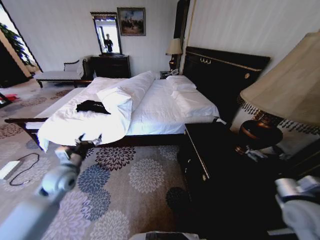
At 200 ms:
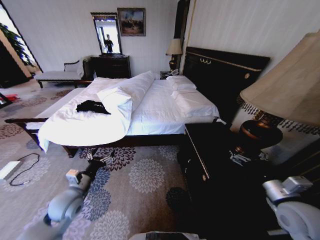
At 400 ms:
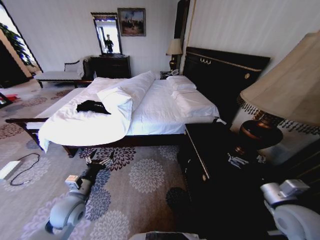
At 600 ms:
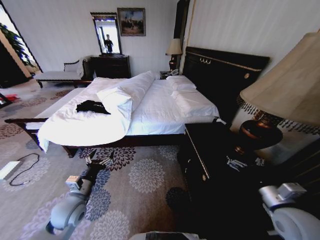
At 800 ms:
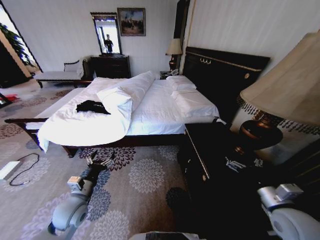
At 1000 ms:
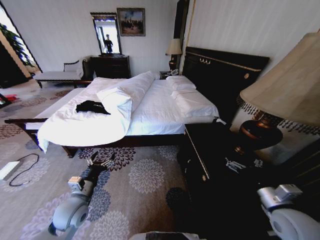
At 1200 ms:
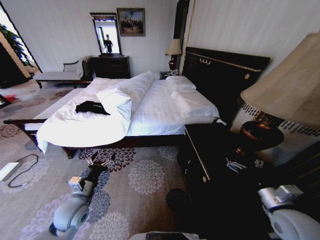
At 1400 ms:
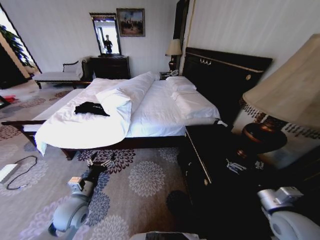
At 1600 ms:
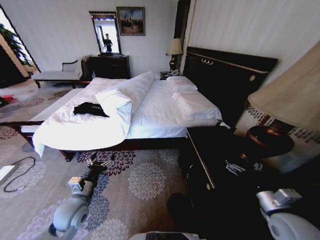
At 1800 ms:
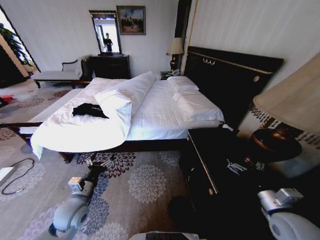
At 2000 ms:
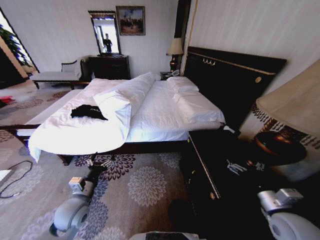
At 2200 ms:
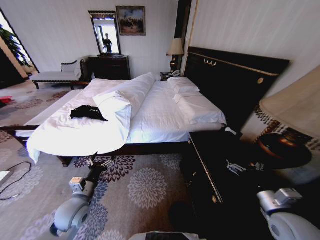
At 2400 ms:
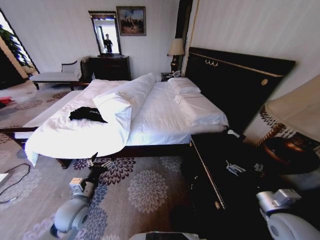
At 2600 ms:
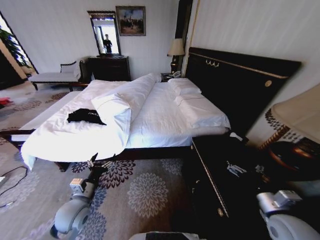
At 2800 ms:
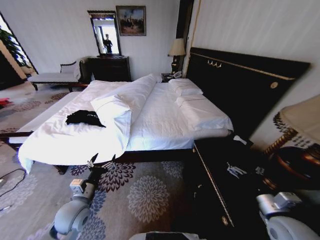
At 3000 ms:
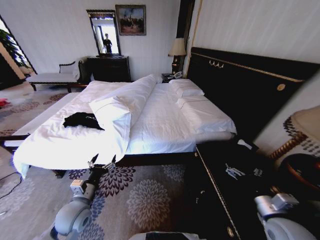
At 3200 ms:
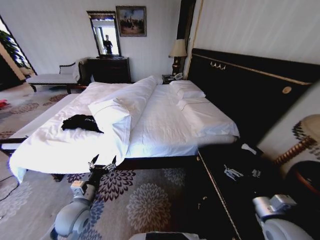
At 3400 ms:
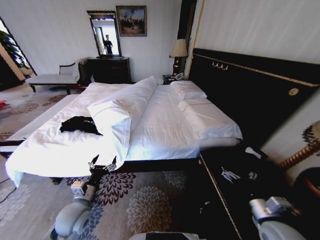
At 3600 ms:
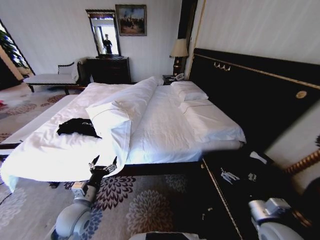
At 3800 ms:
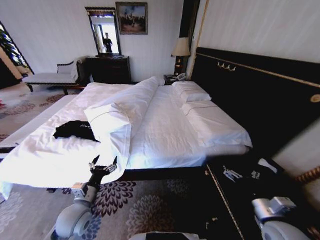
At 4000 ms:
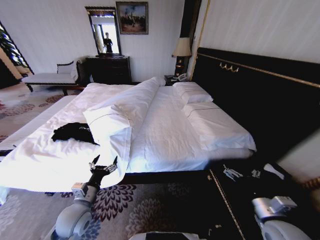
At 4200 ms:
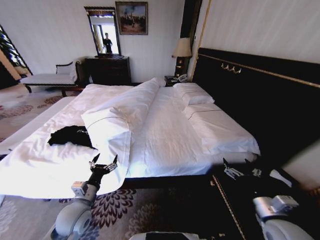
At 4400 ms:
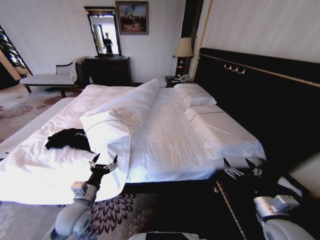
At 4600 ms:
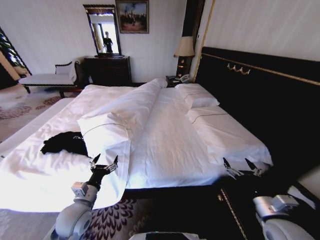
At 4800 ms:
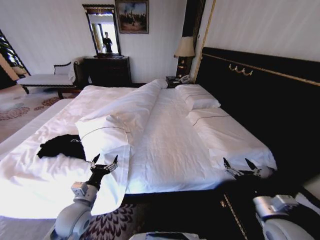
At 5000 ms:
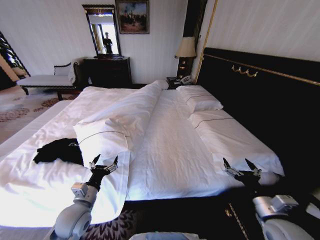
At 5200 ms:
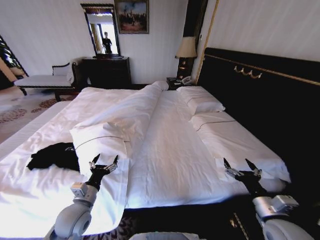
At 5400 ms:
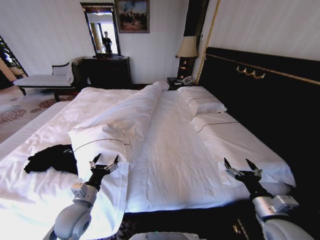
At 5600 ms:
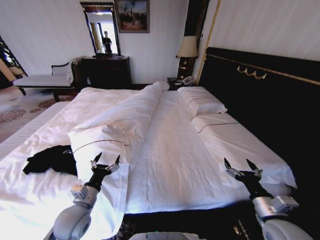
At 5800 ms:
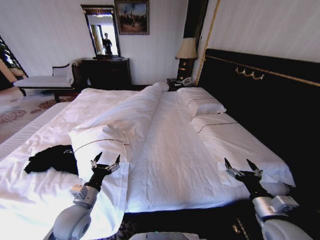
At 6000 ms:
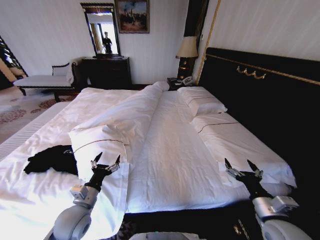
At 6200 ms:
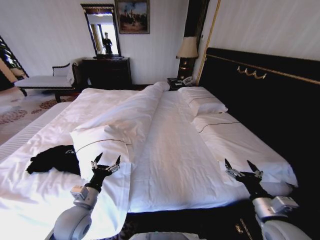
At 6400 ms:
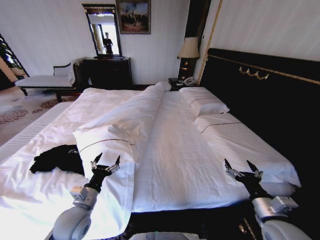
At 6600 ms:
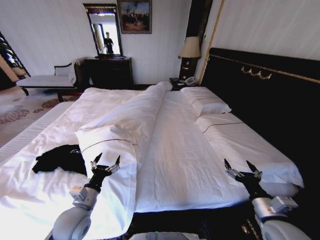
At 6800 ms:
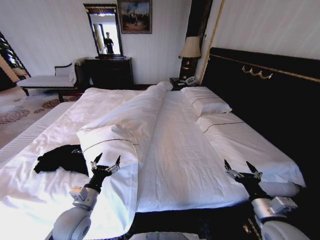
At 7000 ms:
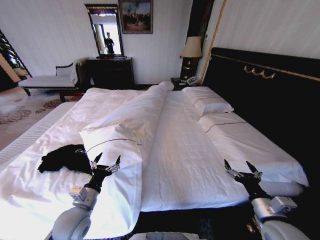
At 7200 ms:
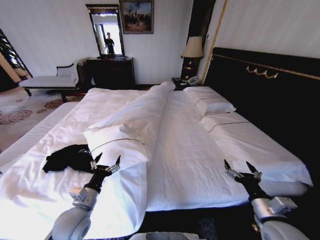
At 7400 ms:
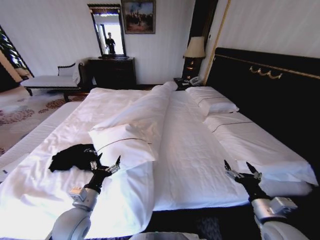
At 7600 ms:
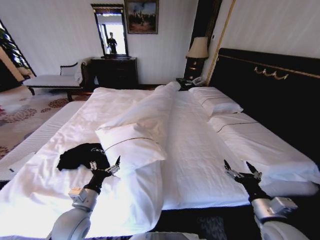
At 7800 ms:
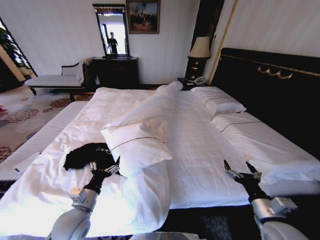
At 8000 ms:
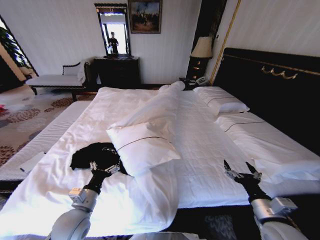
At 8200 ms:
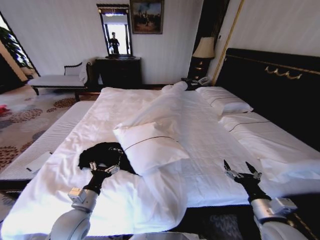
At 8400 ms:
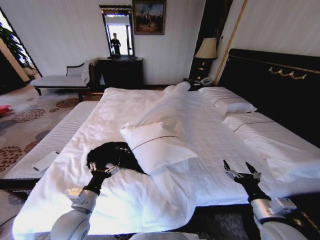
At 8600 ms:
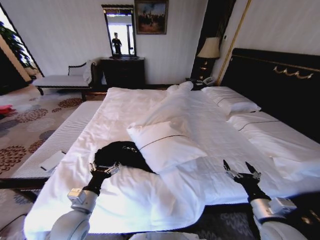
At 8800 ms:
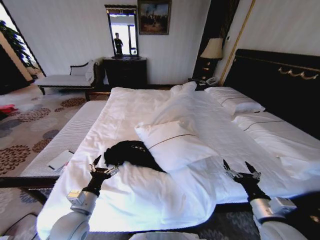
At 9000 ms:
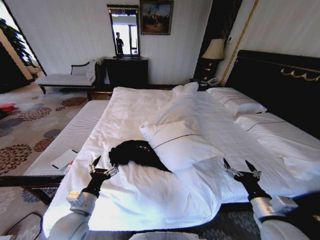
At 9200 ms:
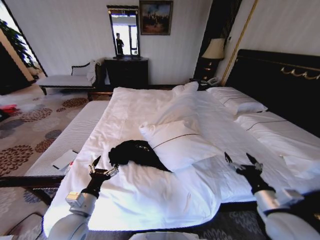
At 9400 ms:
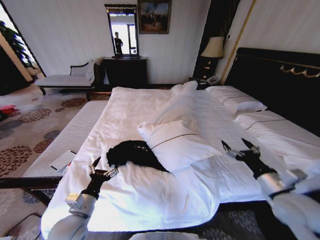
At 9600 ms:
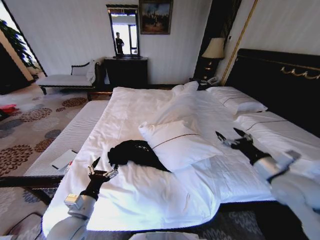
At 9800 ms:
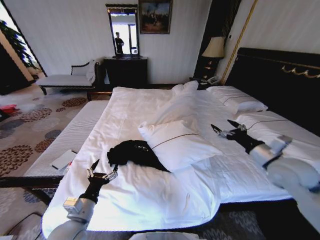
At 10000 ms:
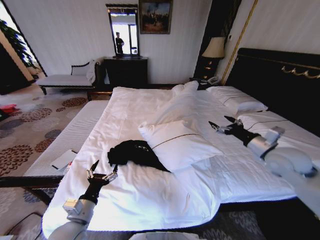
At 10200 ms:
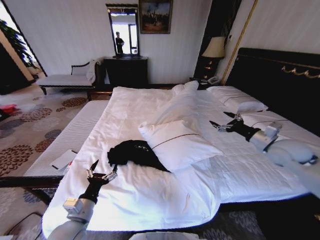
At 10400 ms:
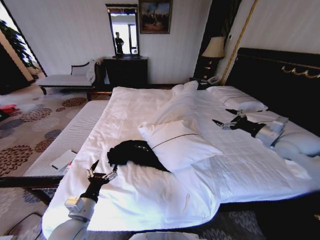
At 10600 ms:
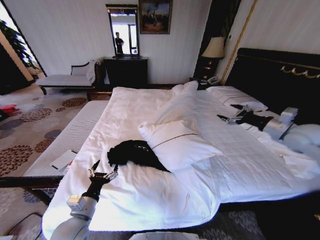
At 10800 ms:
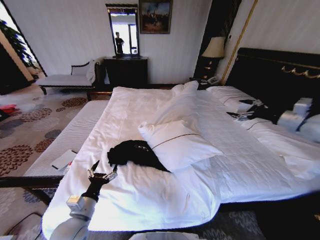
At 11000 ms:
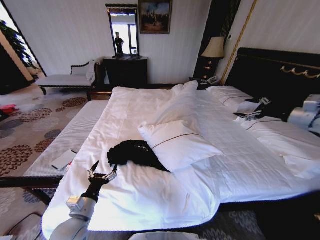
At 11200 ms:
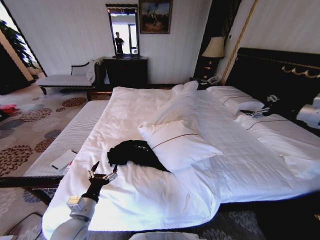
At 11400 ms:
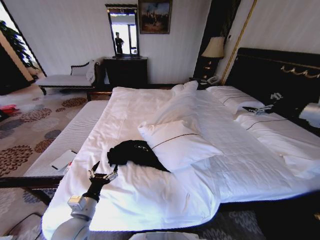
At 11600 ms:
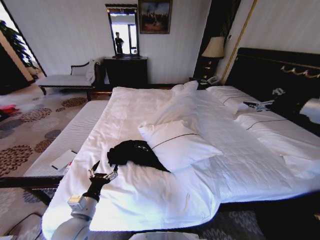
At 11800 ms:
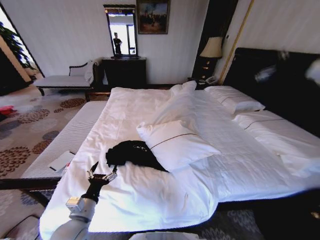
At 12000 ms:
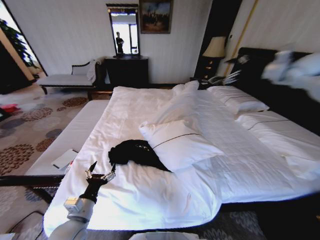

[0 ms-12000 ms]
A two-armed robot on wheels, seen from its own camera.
Task of the whole recording: Fold the clothes on the bed.
9000 ms to 10400 ms: The right gripper shifts about 30 cm forward, upward and to the right.
10400 ms to 12000 ms: The right gripper travels upward and forward by approximately 25 cm.

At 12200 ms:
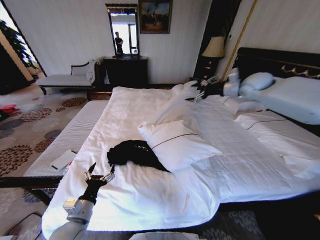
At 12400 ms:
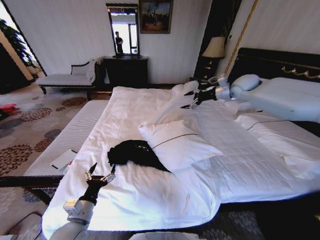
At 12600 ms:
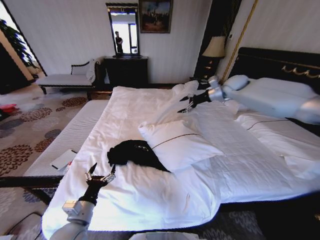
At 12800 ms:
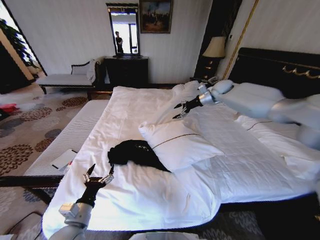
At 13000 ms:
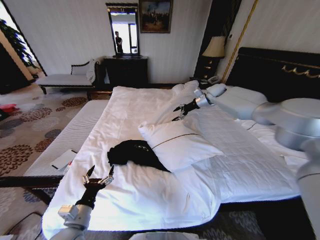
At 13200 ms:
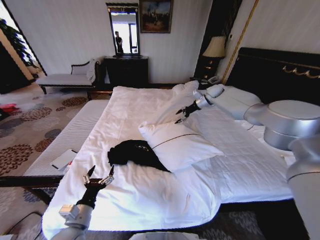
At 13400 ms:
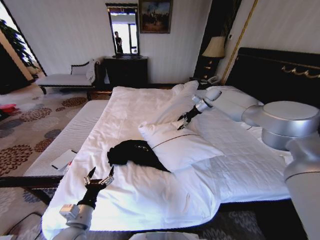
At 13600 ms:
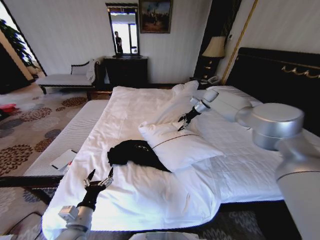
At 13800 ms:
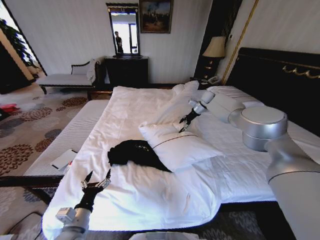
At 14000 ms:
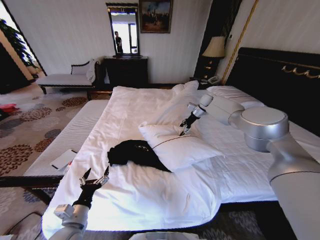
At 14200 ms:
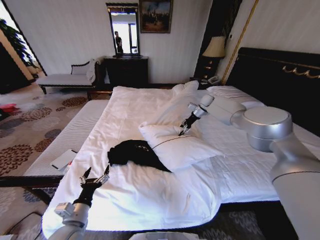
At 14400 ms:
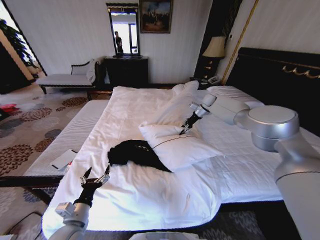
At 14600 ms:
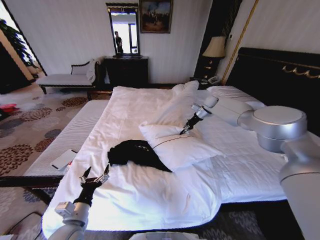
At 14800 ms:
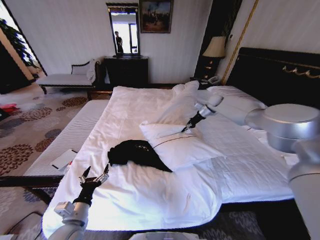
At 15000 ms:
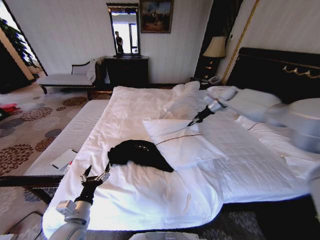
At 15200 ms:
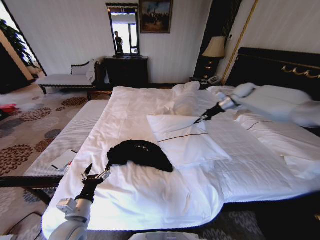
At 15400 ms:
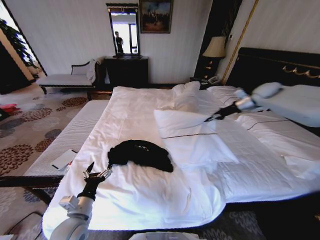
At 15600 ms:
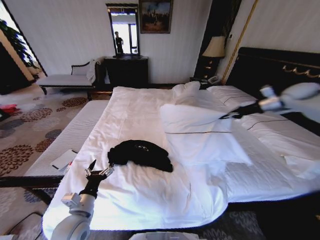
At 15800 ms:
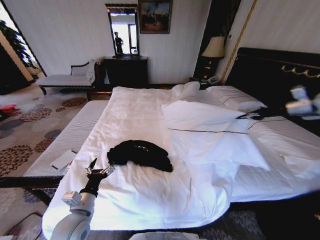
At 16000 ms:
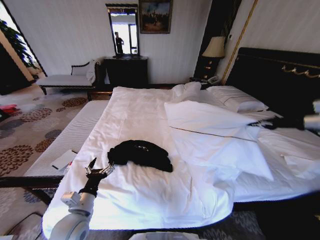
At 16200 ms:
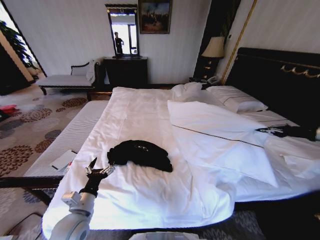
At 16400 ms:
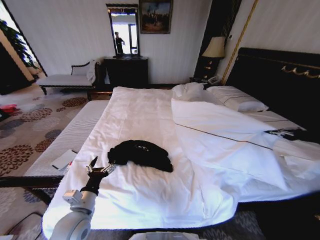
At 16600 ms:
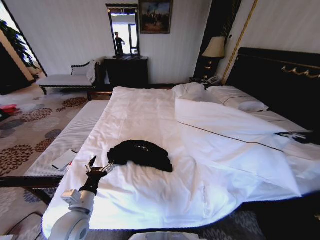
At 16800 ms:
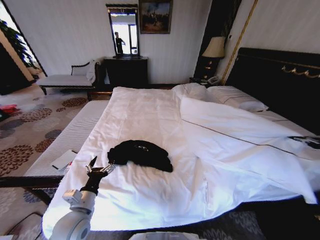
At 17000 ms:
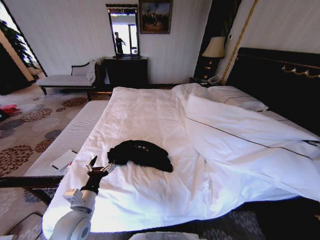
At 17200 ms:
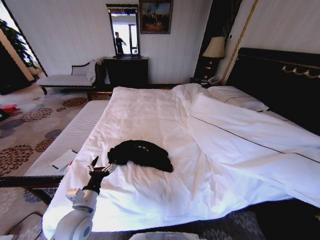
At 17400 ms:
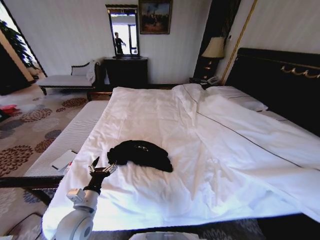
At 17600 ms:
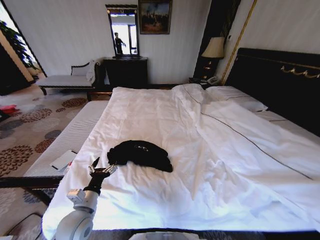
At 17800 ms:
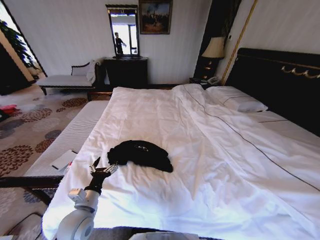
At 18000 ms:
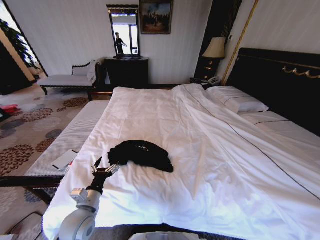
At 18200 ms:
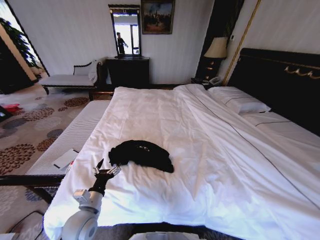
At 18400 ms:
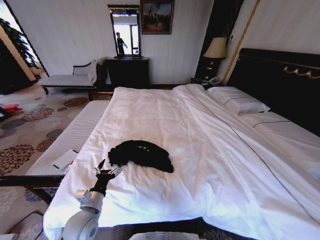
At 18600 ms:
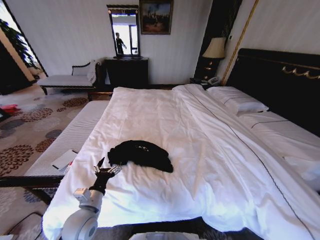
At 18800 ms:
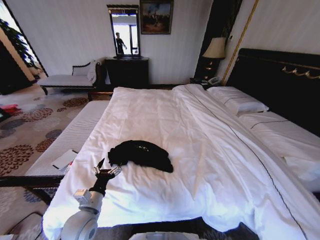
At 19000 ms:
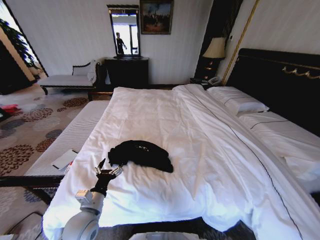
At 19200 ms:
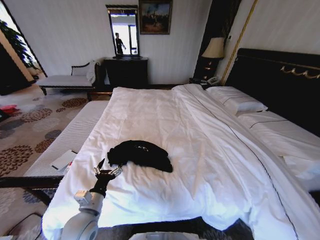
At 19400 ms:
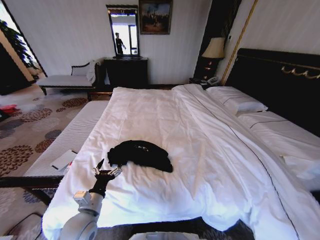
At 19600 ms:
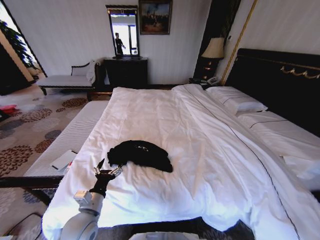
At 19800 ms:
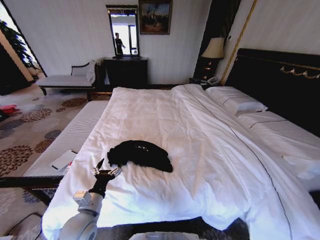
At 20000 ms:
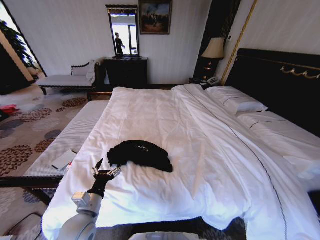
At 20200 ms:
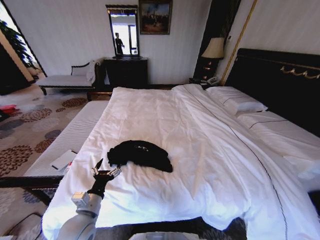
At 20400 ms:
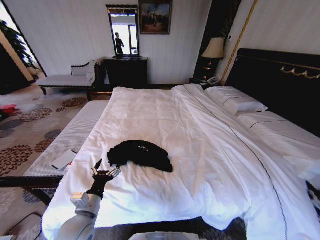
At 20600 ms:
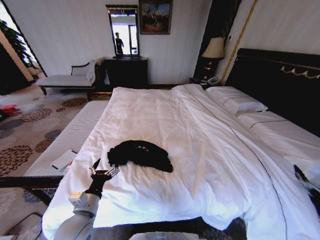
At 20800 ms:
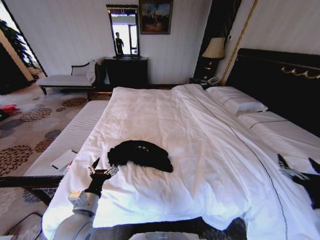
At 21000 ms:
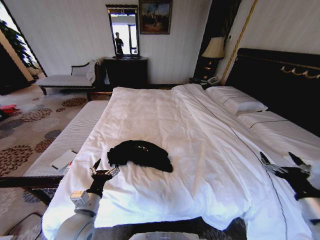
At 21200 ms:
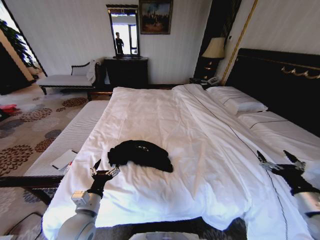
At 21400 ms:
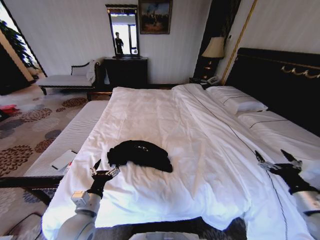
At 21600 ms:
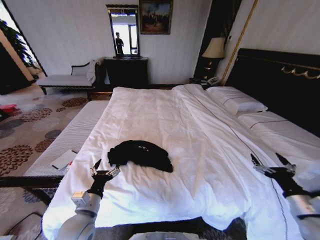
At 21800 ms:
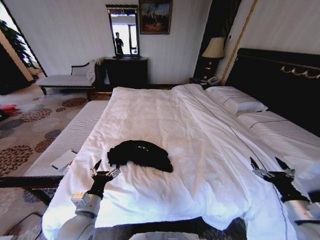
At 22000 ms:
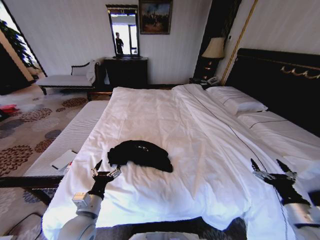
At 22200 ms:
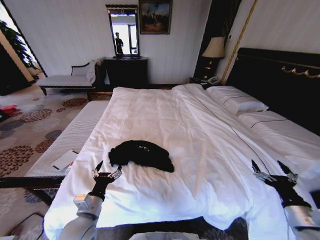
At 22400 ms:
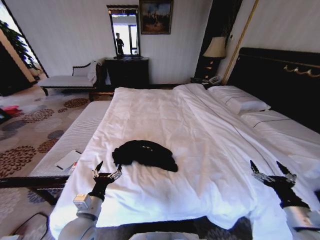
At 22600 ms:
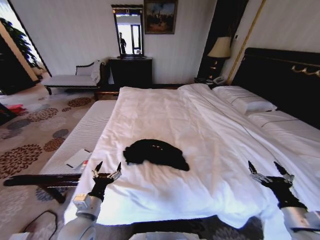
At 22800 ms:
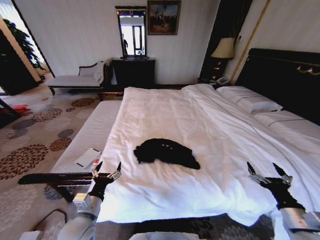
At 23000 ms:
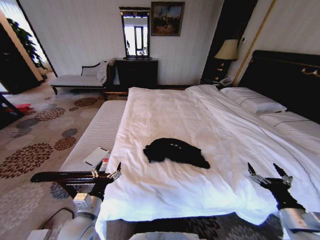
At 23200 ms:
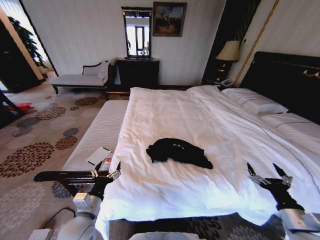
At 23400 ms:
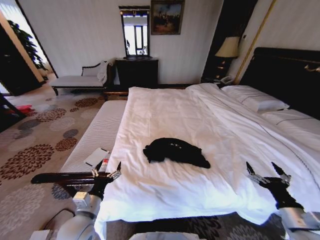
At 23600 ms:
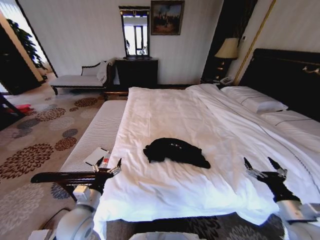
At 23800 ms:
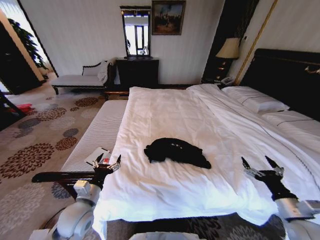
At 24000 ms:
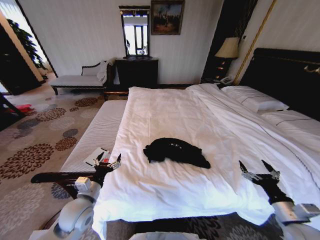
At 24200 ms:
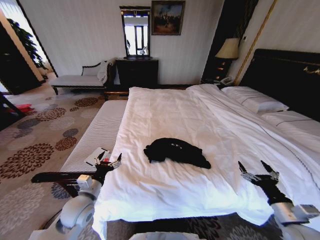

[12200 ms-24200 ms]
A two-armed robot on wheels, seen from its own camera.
Task of the whole recording: Fold the clothes on the bed.
12200 ms to 13800 ms: The right gripper goes some 20 cm forward, downward and to the left.
13800 ms to 15200 ms: The right gripper travels to the right, backward and upward by about 15 cm, and closes its fingers.
15200 ms to 16600 ms: The right gripper travels backward and to the right by approximately 50 cm.
16600 ms to 18200 ms: The right gripper travels backward by approximately 40 cm.
18200 ms to 19800 ms: The right gripper heads downward and to the left, covering about 20 cm, and opens its fingers.
19800 ms to 21200 ms: The right gripper moves forward, to the left and upward, roughly 35 cm.
21200 ms to 22600 ms: The right gripper shifts by about 5 cm.
22600 ms to 24200 ms: The left gripper travels forward by approximately 5 cm.
